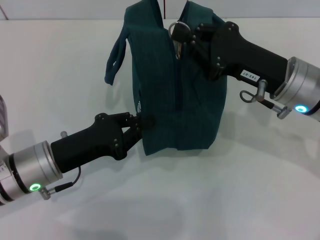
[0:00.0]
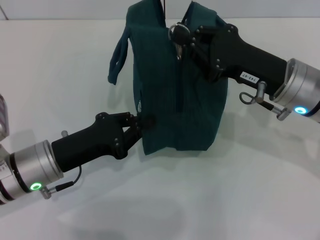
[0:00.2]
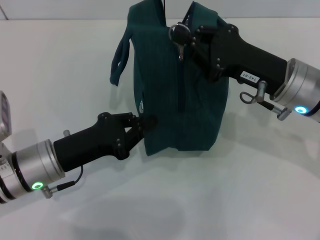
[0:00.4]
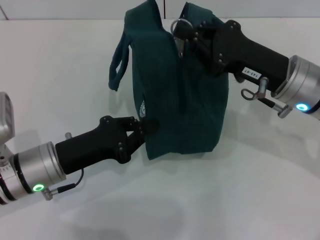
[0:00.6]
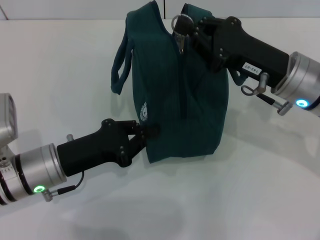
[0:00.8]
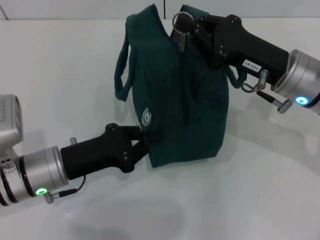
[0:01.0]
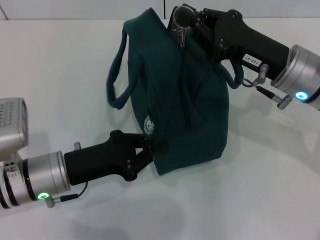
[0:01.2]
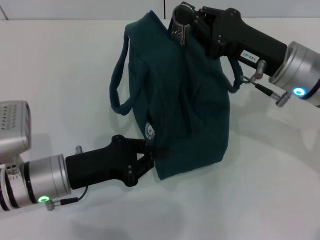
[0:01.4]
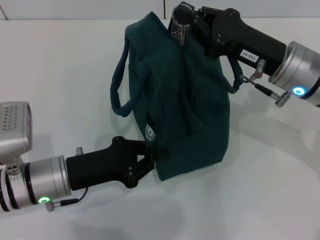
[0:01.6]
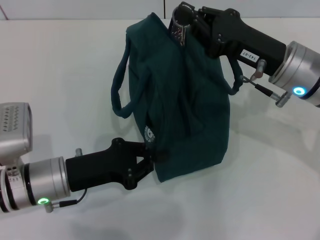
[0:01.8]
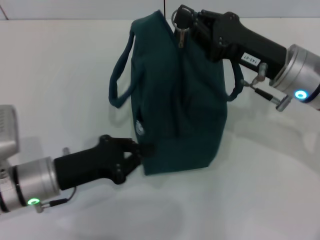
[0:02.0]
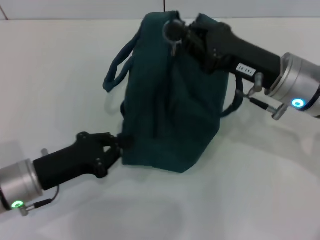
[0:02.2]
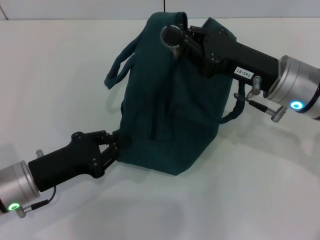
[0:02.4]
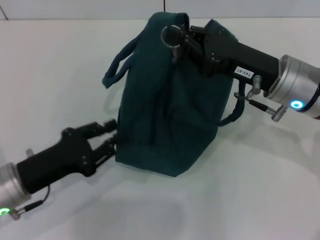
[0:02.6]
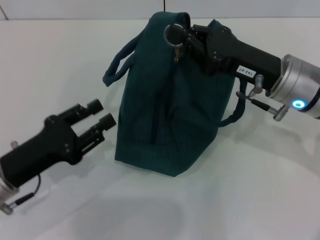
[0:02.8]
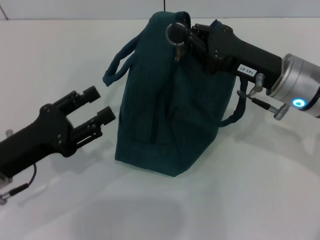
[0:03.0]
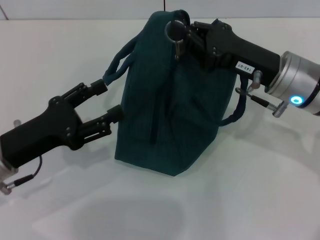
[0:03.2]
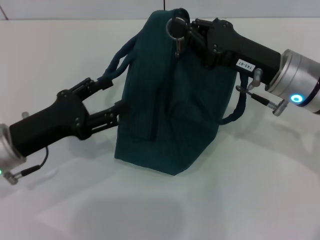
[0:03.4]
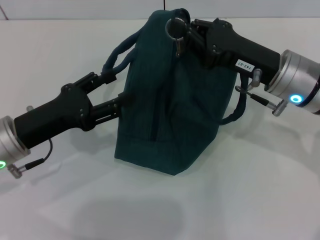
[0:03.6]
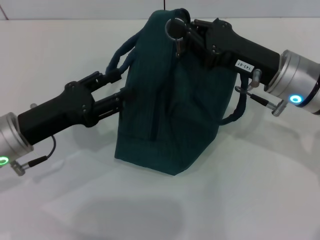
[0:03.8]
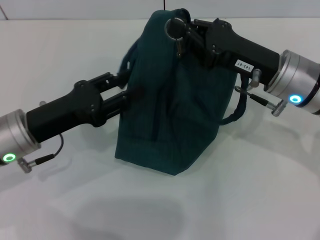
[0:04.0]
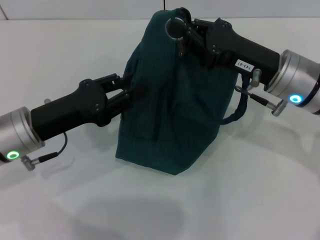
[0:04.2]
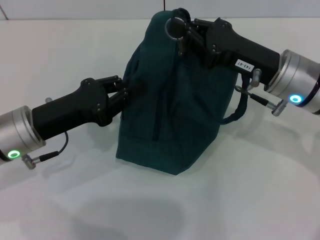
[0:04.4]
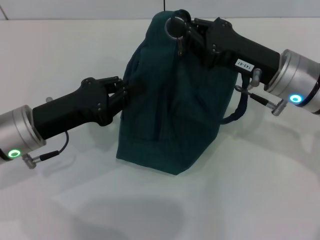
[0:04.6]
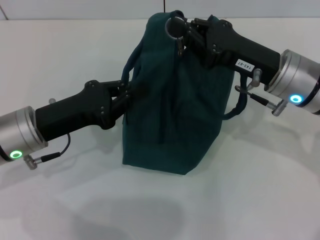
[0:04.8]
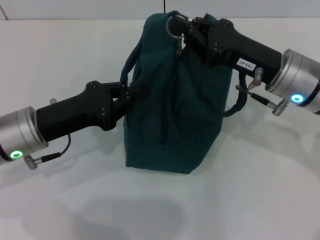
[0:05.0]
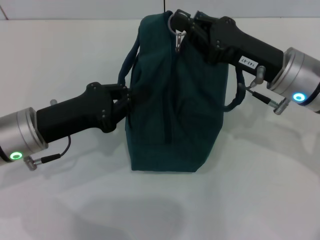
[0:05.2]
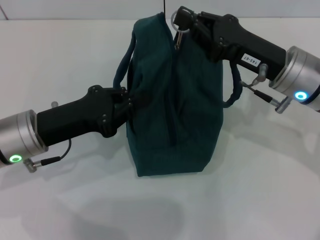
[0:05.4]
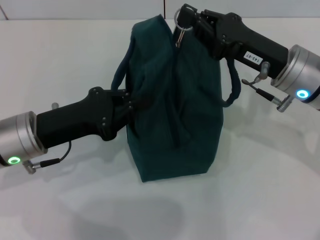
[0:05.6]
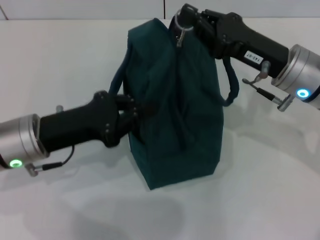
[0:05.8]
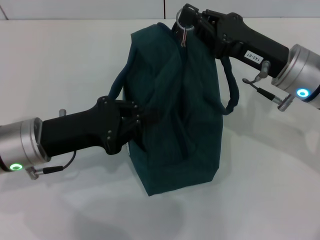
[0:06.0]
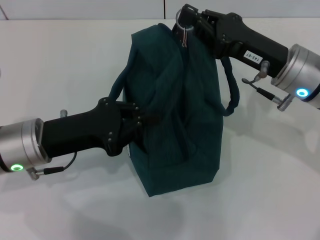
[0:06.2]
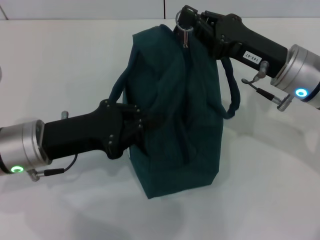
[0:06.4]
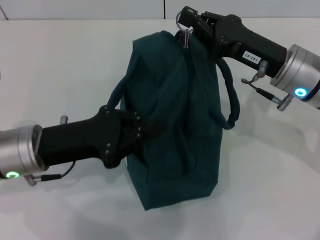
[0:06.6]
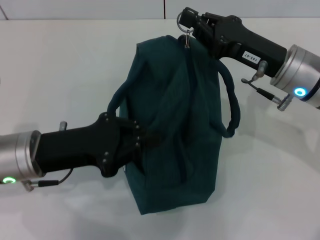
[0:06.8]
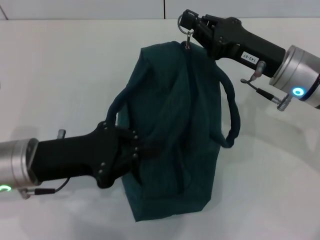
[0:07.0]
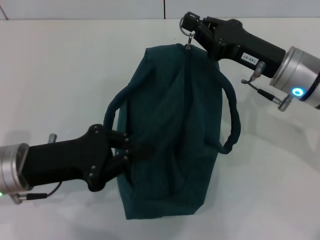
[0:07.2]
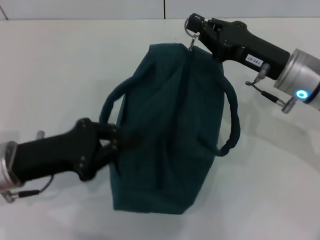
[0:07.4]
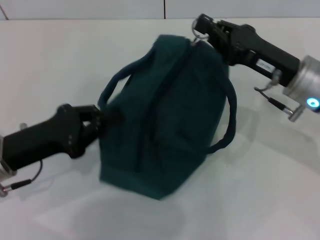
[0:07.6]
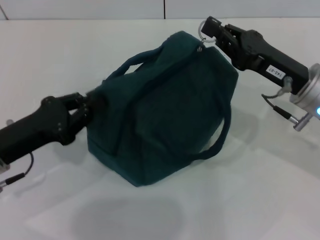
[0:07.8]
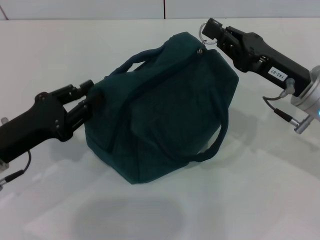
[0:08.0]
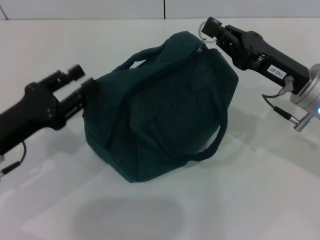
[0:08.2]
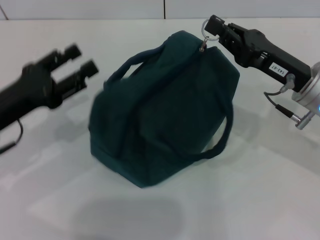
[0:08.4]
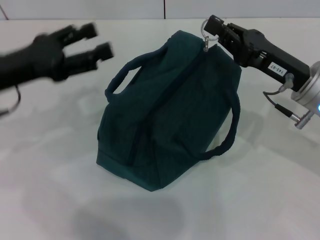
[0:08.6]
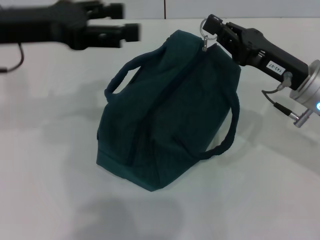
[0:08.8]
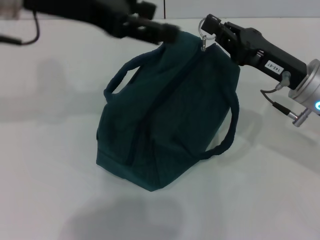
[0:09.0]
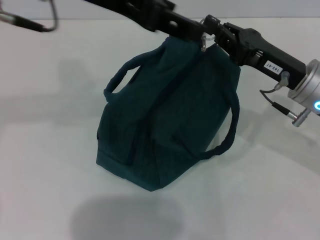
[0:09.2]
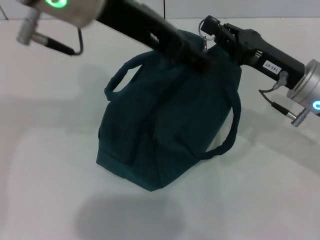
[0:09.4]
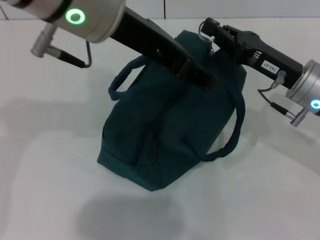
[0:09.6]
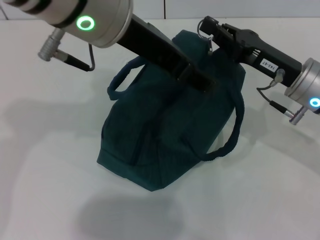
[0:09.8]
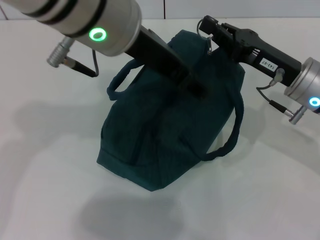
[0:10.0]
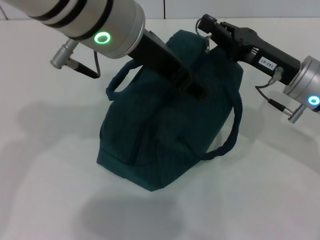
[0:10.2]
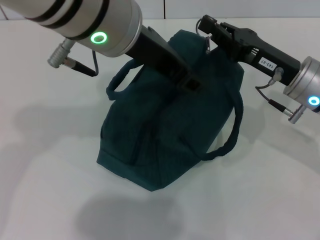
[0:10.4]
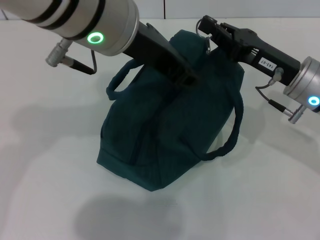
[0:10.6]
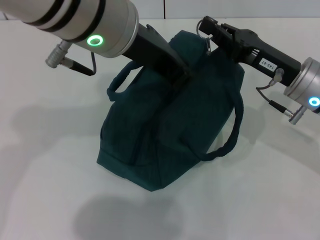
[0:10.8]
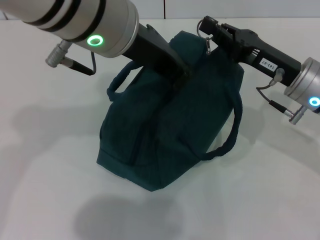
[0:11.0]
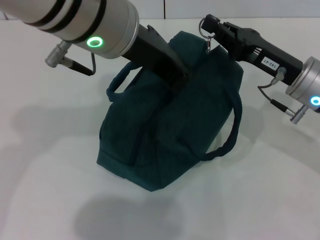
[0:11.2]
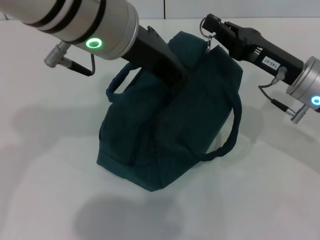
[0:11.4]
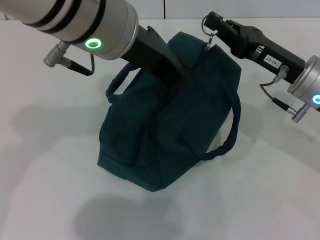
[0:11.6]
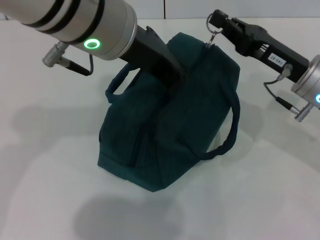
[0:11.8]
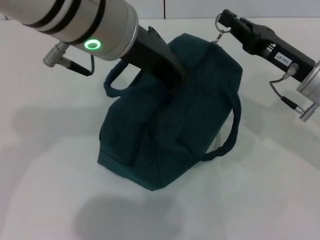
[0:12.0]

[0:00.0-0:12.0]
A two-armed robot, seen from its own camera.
0:01.6 to 0:03.0: The left gripper is displaced to the left by roughly 5 cm, and opens its fingers.
0:03.0 to 0:04.4: The left gripper moves forward, approximately 5 cm.
0:04.4 to 0:06.0: The left gripper closes.
0:06.0 to 0:07.6: The left gripper moves approximately 5 cm.
0:07.6 to 0:09.0: The left gripper heads upward and forward, covering roughly 25 cm, and opens its fingers.
0:09.0 to 0:10.4: The left gripper is displaced to the right by some 10 cm.
0:10.4 to 0:12.0: The left gripper closes.

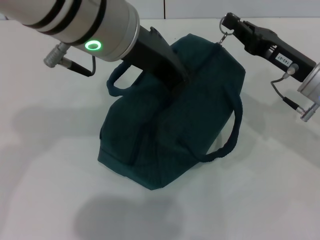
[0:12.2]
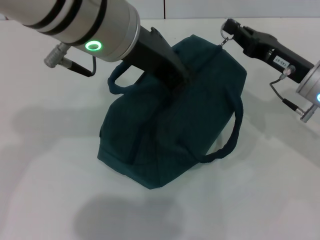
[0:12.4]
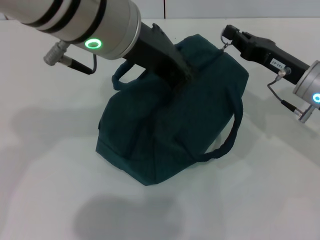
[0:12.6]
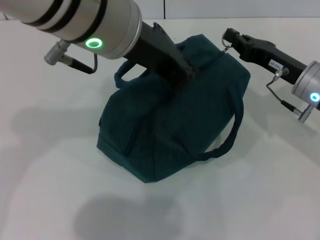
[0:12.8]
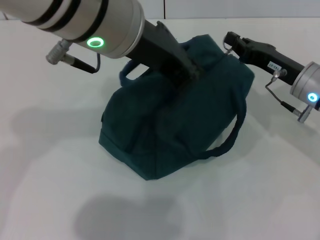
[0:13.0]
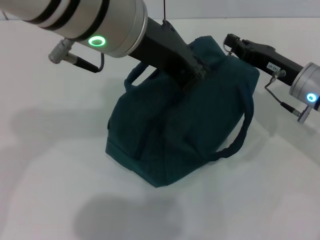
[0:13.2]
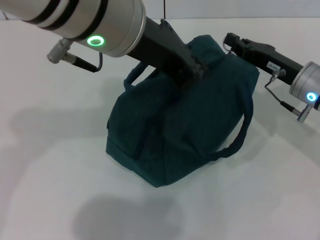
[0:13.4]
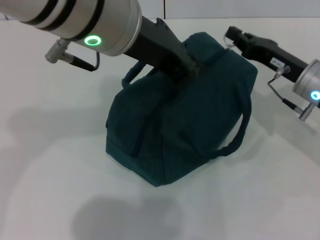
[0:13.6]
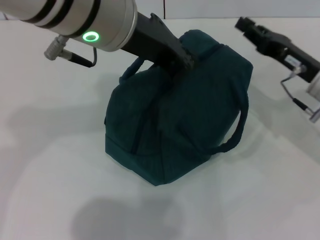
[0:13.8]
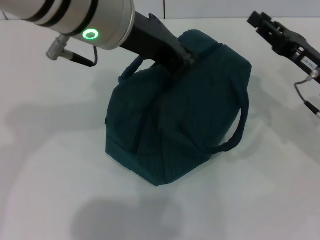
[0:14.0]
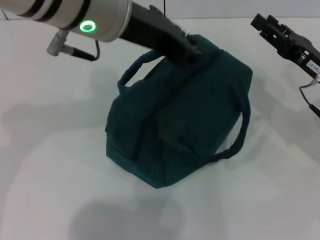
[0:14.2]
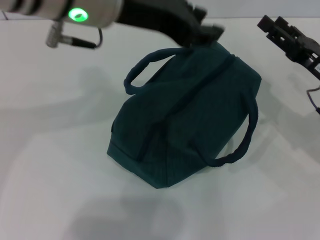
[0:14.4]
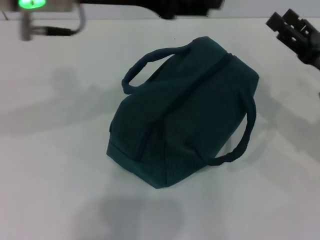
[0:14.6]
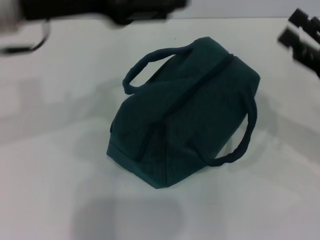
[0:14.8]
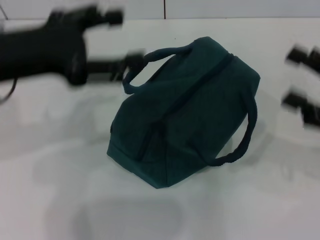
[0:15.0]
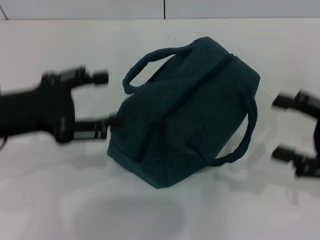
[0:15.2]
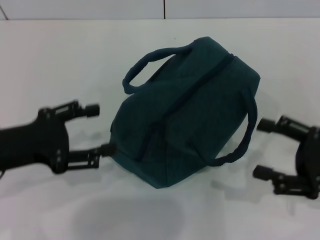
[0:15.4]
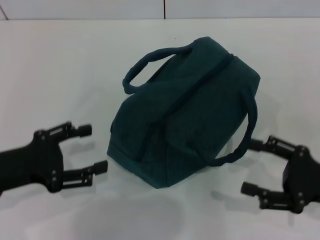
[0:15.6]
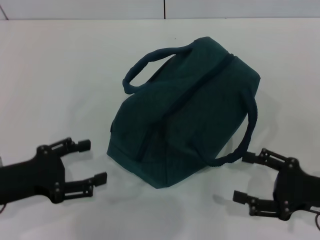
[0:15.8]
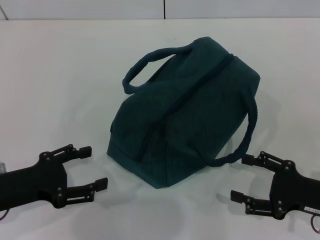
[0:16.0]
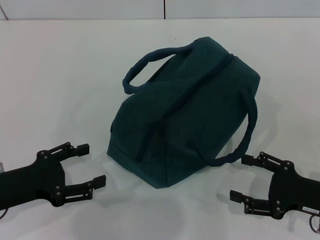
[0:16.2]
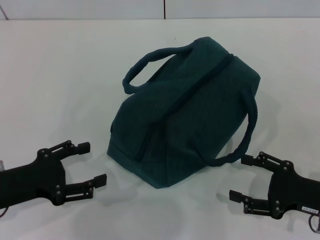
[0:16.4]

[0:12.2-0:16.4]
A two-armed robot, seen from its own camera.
Step, 0:13.8 to 0:14.2: Hold the lunch bag with your left hand.
0:12.2 to 0:13.6: The grippers make only small movements.
0:13.6 to 0:15.0: The left gripper heads to the left and downward, covering roughly 15 cm, and opens; the right gripper goes roughly 15 cm backward and to the right, and opens its fingers.
0:15.0 to 0:16.4: The right gripper shifts roughly 10 cm downward. The left gripper goes roughly 15 cm downward.
